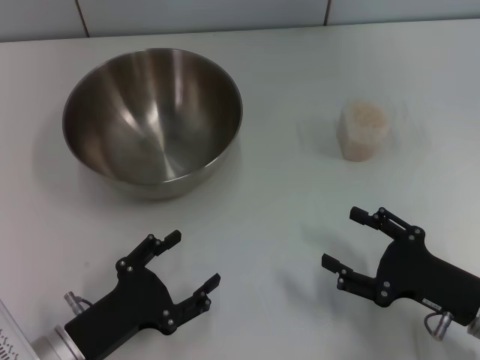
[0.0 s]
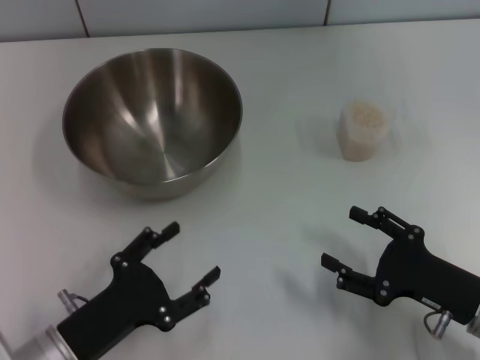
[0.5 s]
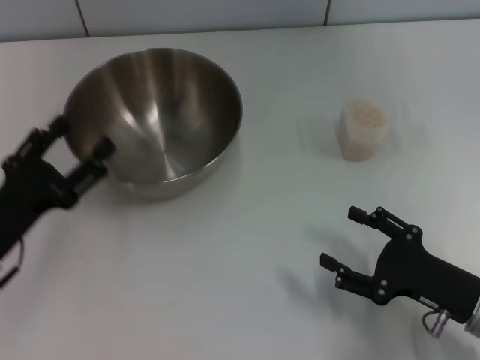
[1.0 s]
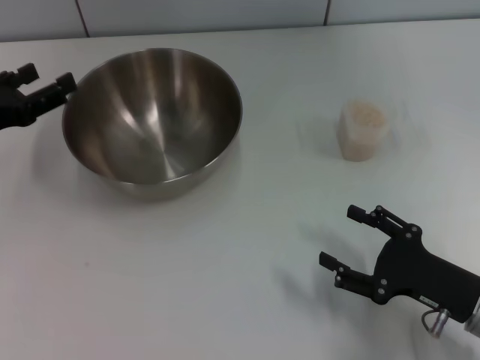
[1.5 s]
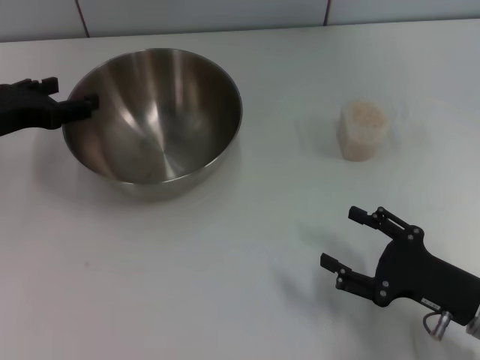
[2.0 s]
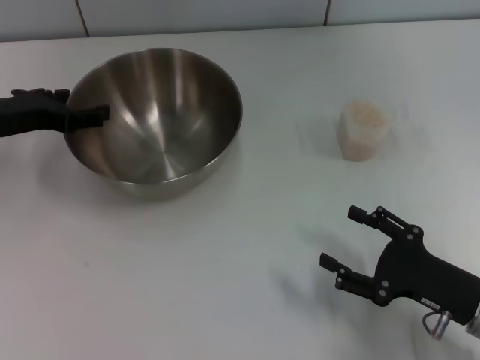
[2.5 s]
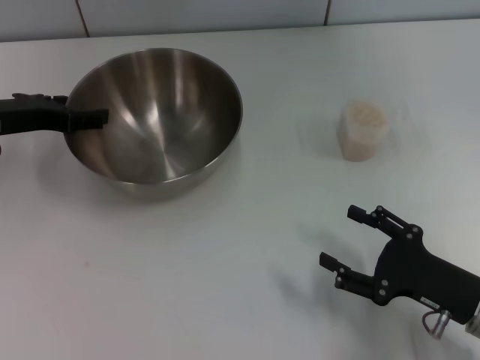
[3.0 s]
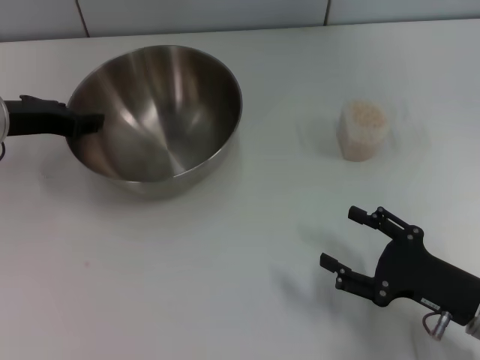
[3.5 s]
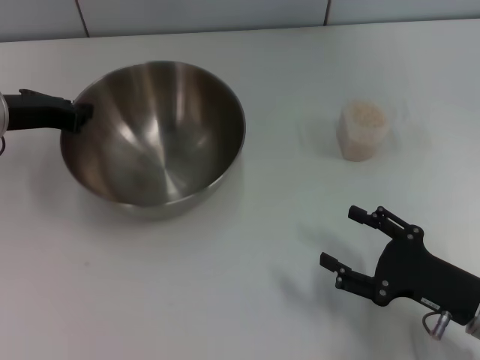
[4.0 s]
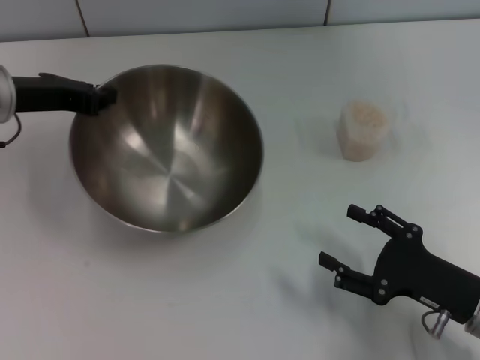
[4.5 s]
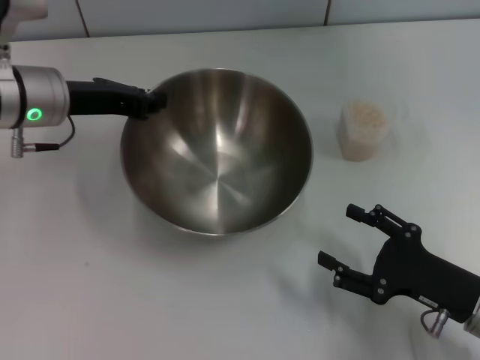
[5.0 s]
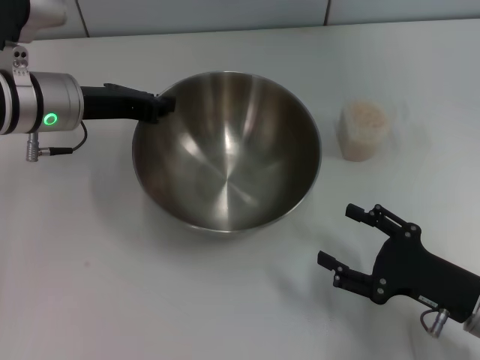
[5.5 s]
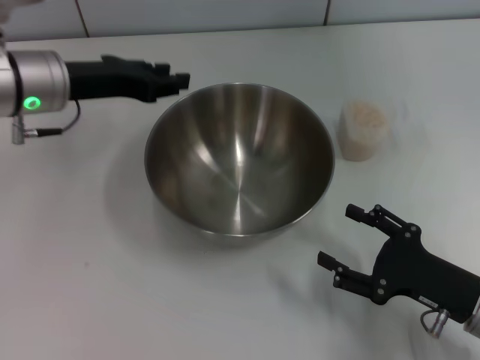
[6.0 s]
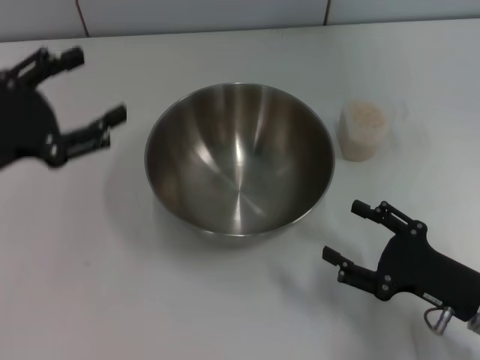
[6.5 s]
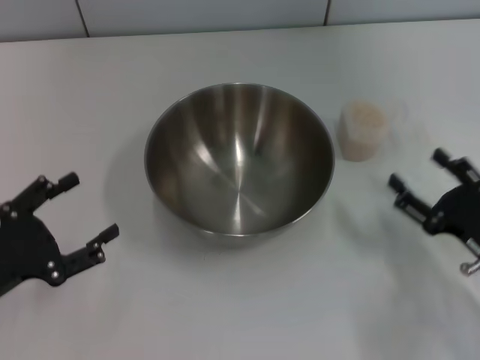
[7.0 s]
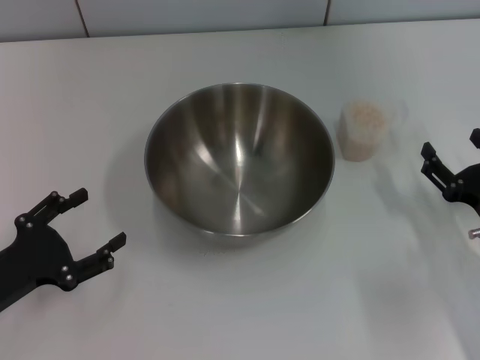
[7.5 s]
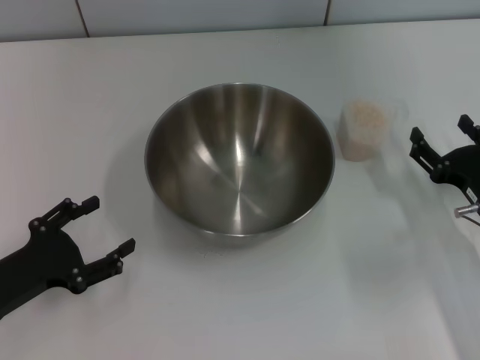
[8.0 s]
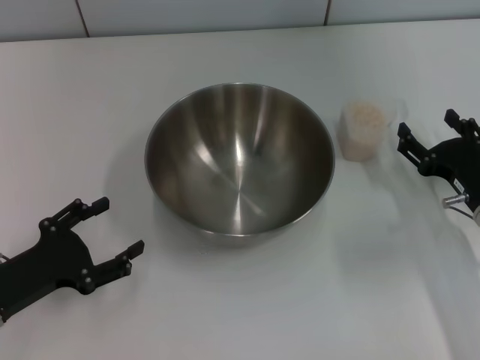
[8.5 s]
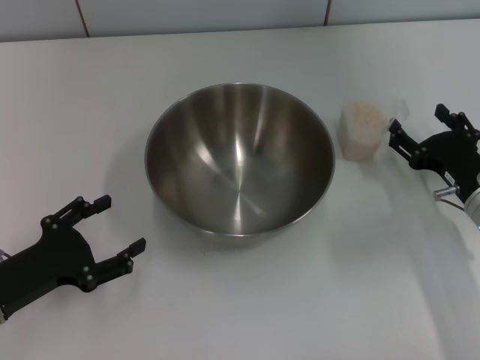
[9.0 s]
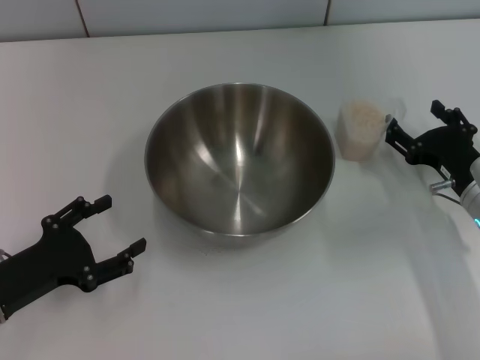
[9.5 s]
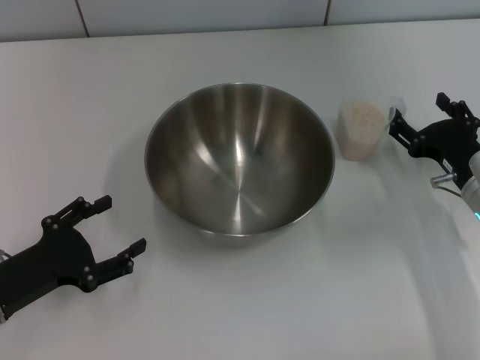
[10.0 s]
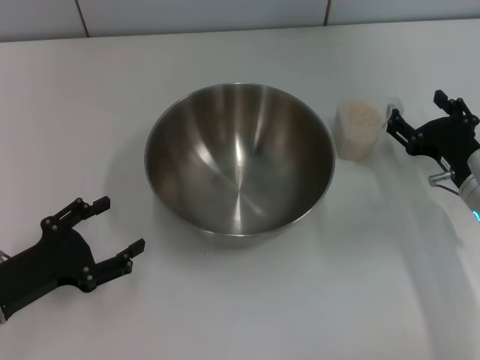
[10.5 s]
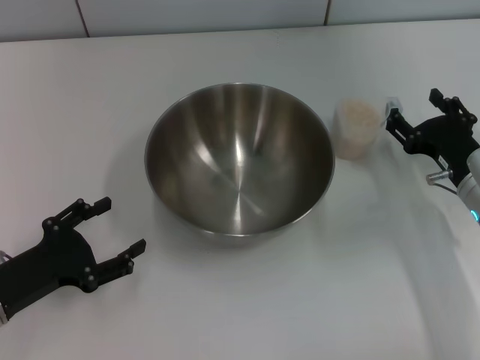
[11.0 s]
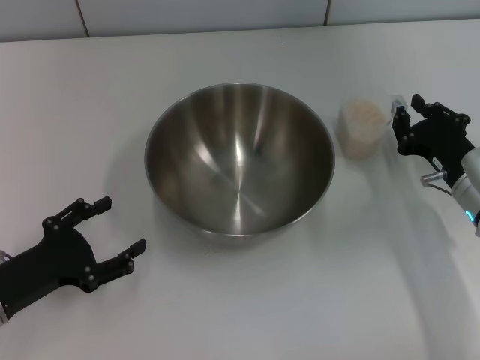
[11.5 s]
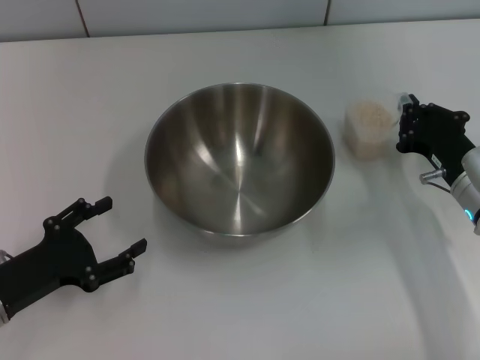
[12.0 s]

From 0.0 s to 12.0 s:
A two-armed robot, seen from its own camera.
Task of the whole recording: Place the bowl in the middle of the table with one hand and pour the rice from the grain cup into it with the other hand.
Step, from 0.0 s to 4.5 s: Pick up the bowl with the left gripper.
Step, from 5.0 s to 6.0 s: Place the bowl in the center of view with the left gripper.
From 0.0 s to 2.0 s: The left gripper heads forward, upward and to the left, covering about 25 cm.
From 2.0 s to 4.0 s: The left gripper closes its fingers.
From 4.0 s to 6.0 s: The left gripper heads to the right, covering approximately 5 cm.
From 6.0 s to 8.0 s: The left gripper shifts some 25 cm backward, downward and to the left, and opens. The right gripper heads forward, covering approximately 5 cm.
From 8.0 s to 10.0 s: The grippers stay close to where they were, moving slightly.
From 10.0 s to 12.0 s: The right gripper closes.

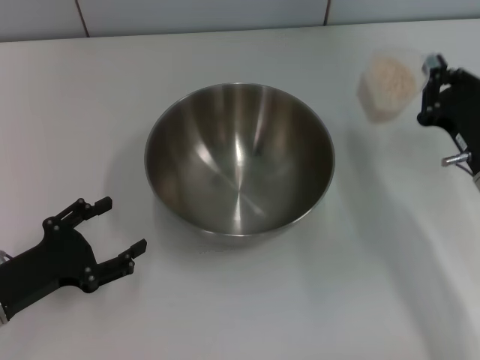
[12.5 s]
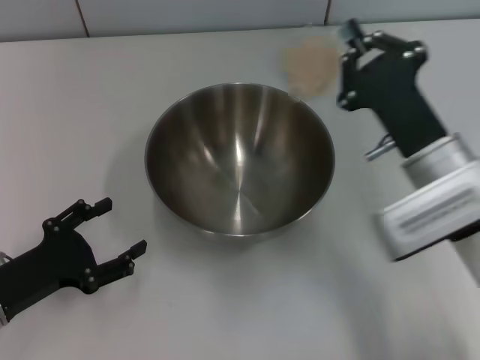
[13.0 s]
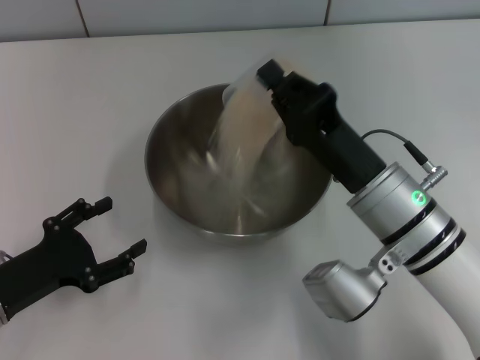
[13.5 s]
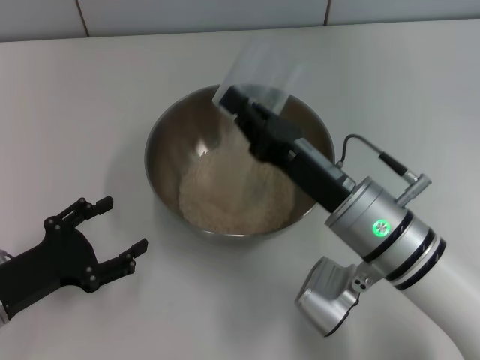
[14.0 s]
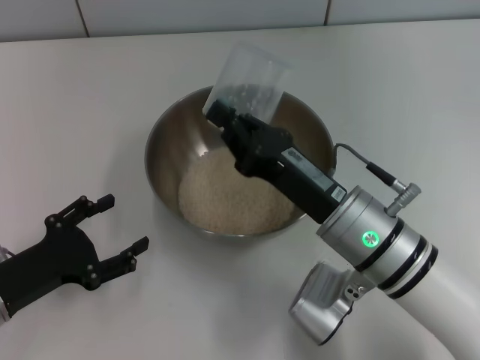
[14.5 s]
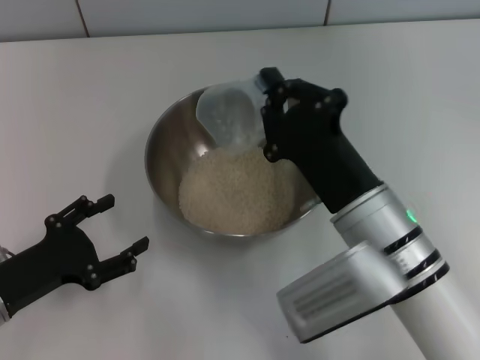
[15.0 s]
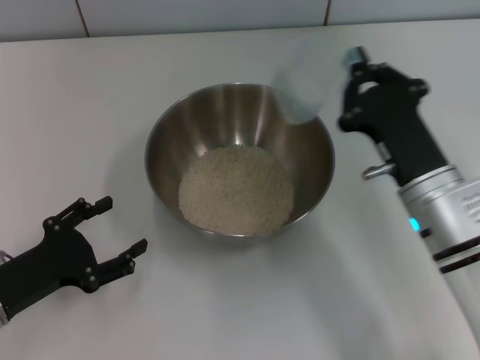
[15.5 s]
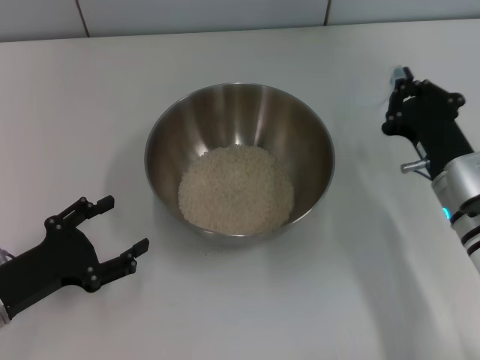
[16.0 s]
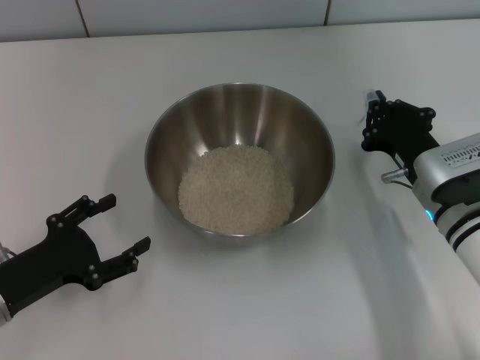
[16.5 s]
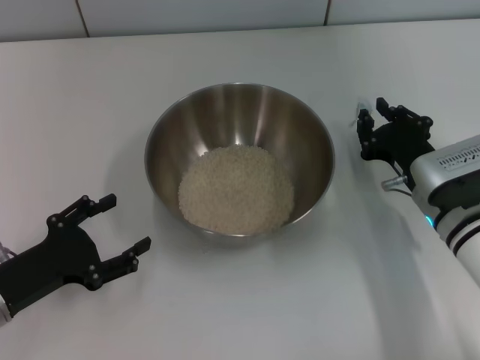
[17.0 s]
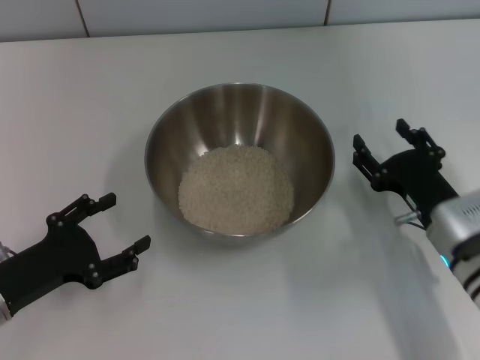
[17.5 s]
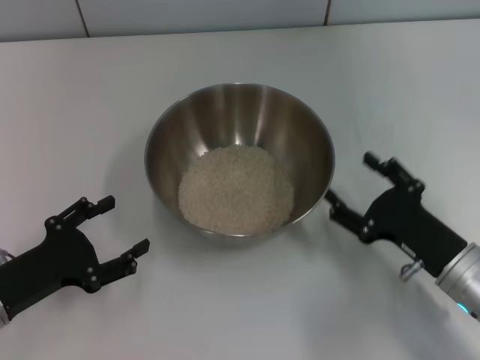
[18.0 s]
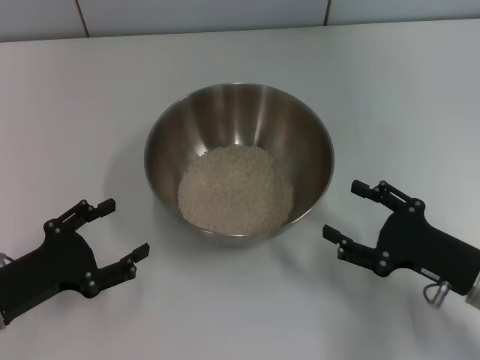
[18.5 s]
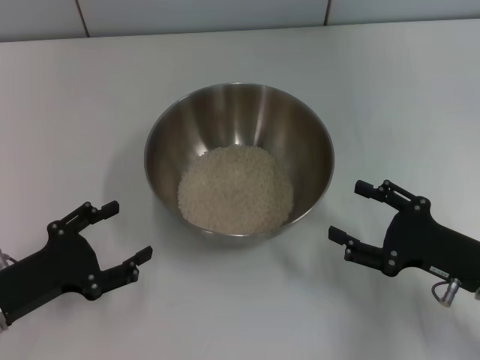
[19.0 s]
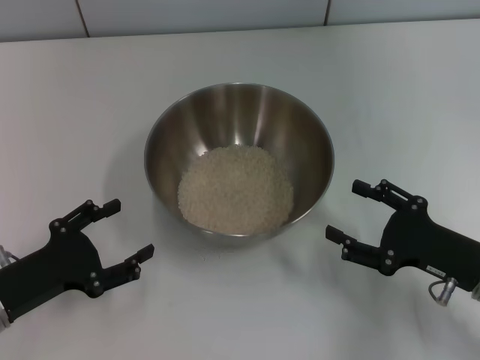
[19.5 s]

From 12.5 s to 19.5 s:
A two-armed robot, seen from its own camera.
Task of the whole recording: Place the bowl in the middle of the table with one hand and pour the rice from the grain cup into it with the other hand.
Step, from 13.0 s to 15.5 s: Pour the rice from the cup into the bowl with the right gripper.
Step, from 16.0 s to 17.5 s: Place the cup on the table with the right gripper.
From 12.5 s to 14.5 s: The right gripper moves to the left, some 15 cm.
From 14.5 s to 16.0 s: The right gripper travels to the right by some 10 cm.
From 16.0 s to 17.5 s: The right gripper opens.
From 17.5 s to 19.5 s: The right gripper ends up roughly 5 cm from where it was.

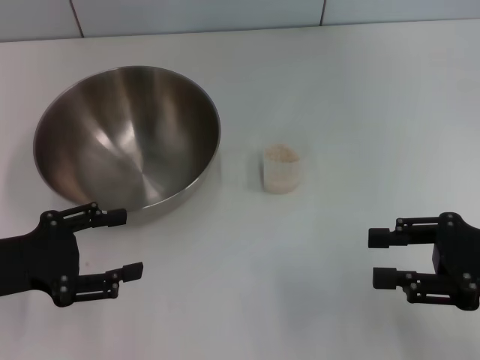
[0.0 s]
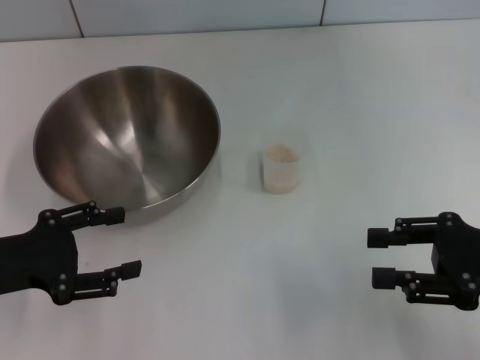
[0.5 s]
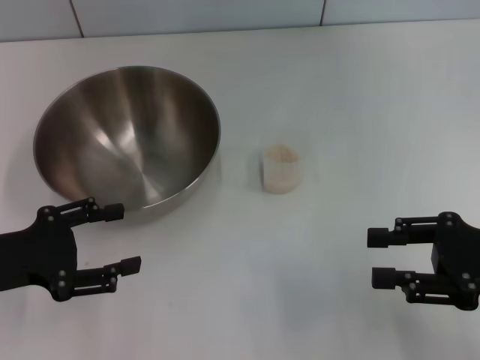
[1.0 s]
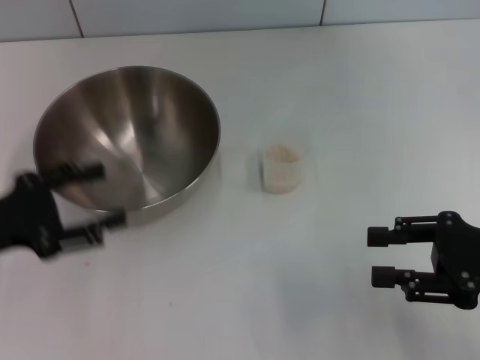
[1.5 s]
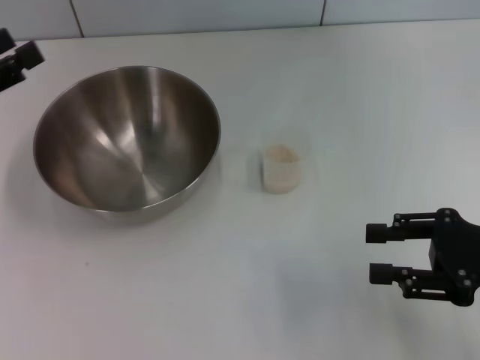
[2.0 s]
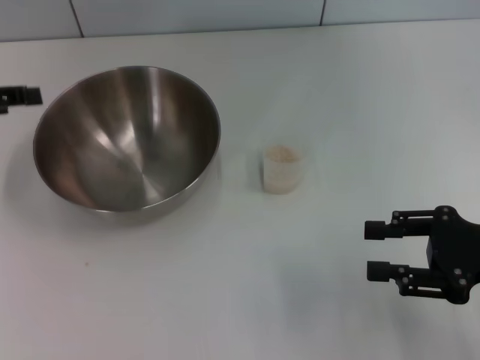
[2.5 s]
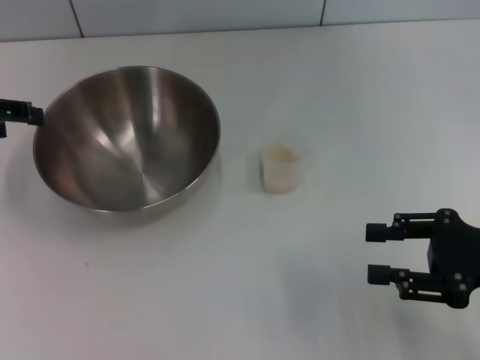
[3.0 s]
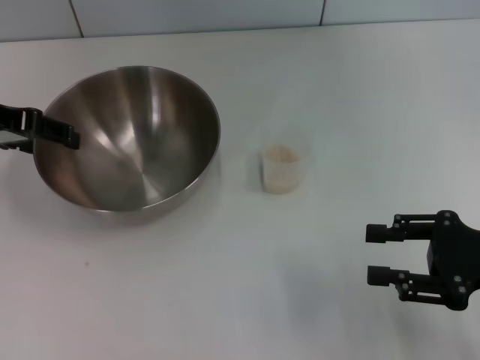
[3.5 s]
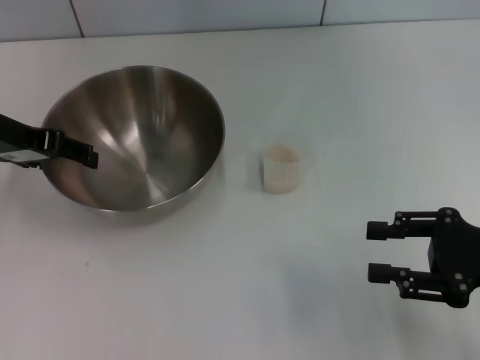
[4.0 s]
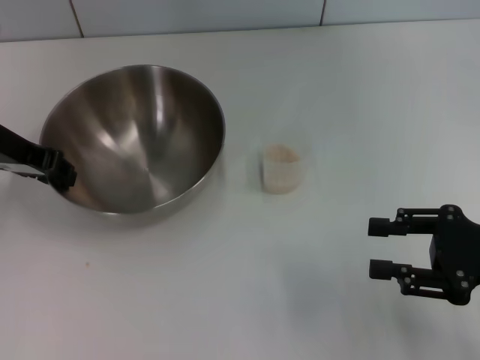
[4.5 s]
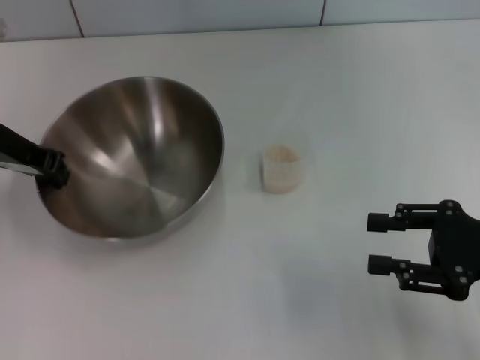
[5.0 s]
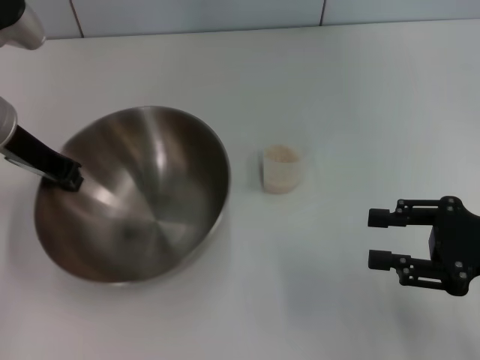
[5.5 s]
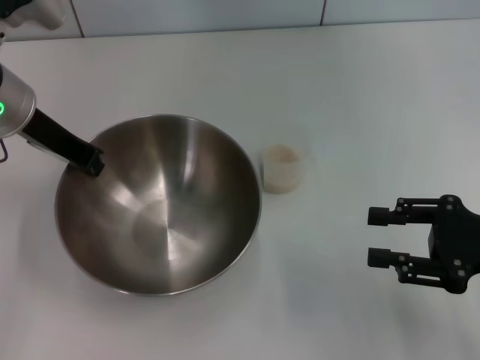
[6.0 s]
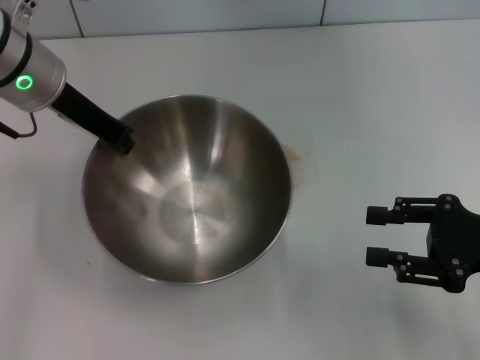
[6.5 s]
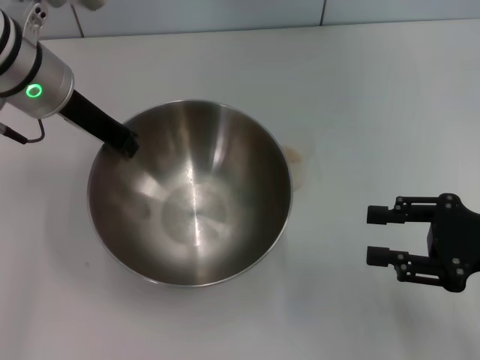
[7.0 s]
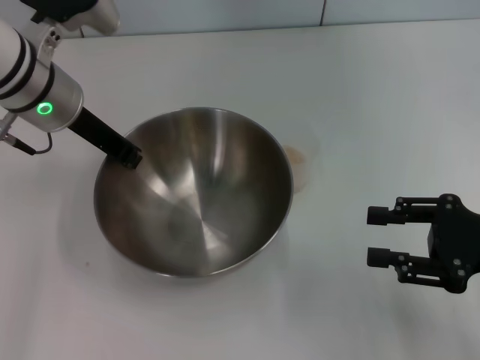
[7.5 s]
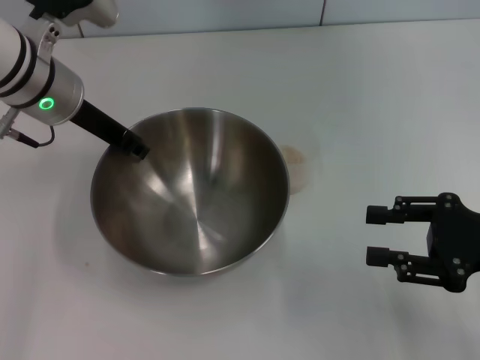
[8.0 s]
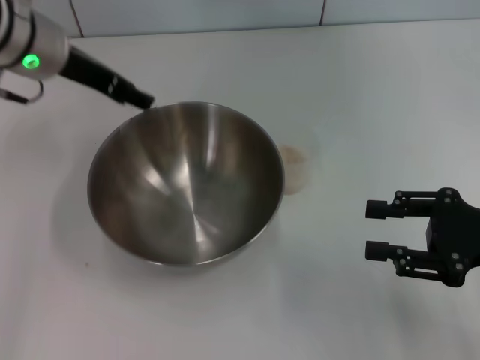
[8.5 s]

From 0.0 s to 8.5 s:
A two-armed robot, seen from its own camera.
Task of the whole recording: Place the bowl in the middle of the table with one hand and pour the rice from the grain cup into it with the other hand.
Step, from 0.0 s to 6.0 s: Pick up the bowl with the left gripper.
From 0.0 s to 2.0 s: The left gripper travels upward and forward by roughly 10 cm.
From 2.0 s to 4.0 s: The left gripper heads forward and to the right, covering about 10 cm.
From 4.0 s to 6.5 s: The left gripper shifts approximately 10 cm to the right, and closes.
From 6.5 s to 8.5 s: The left gripper opens up.
